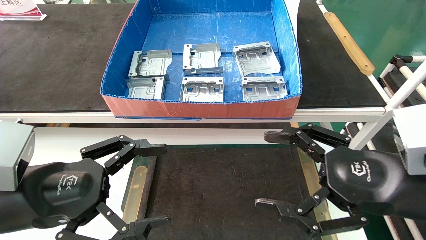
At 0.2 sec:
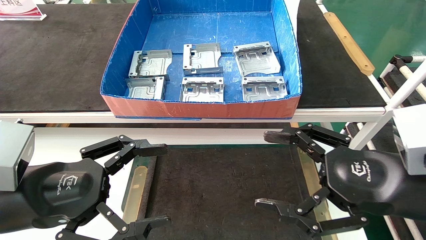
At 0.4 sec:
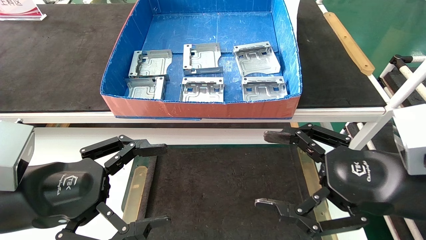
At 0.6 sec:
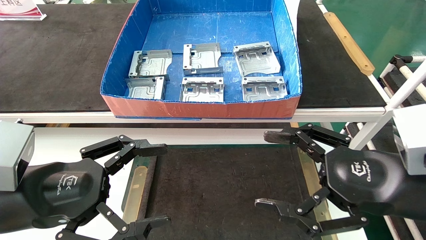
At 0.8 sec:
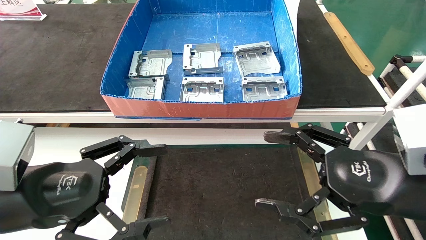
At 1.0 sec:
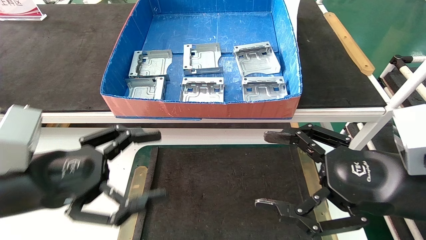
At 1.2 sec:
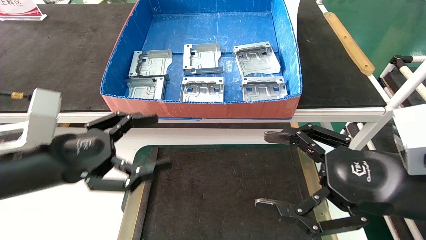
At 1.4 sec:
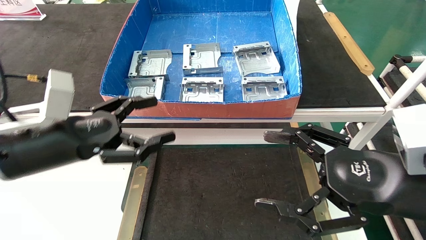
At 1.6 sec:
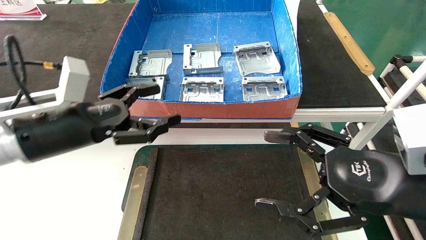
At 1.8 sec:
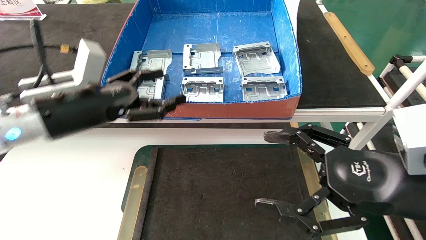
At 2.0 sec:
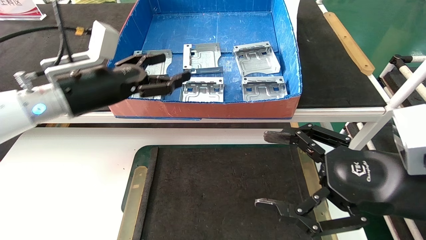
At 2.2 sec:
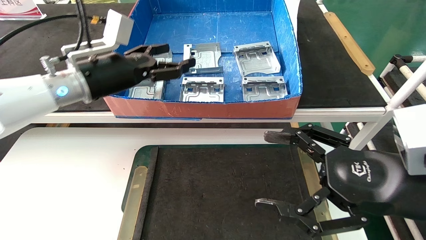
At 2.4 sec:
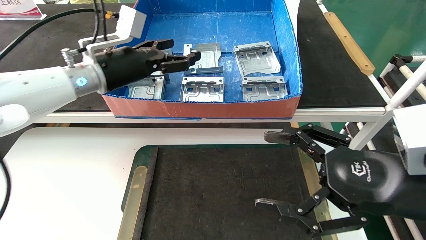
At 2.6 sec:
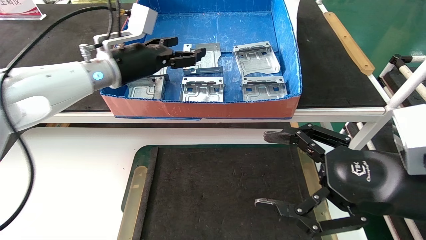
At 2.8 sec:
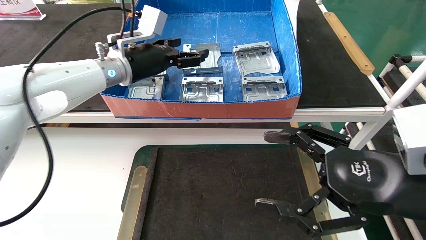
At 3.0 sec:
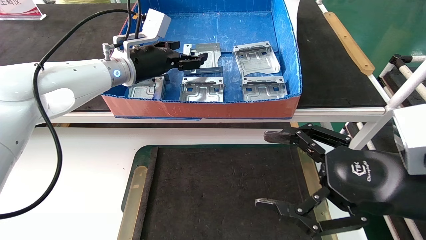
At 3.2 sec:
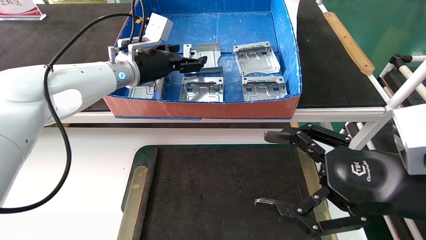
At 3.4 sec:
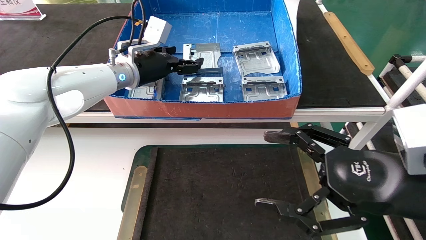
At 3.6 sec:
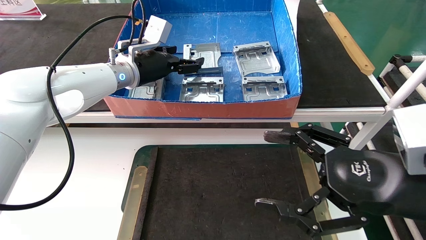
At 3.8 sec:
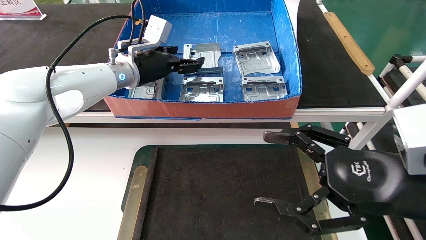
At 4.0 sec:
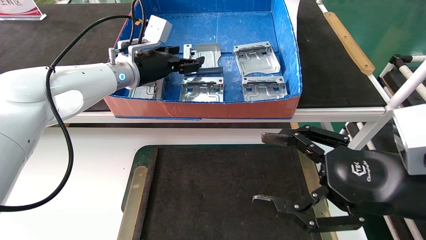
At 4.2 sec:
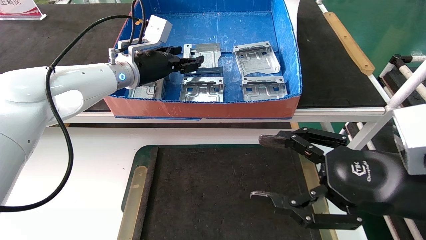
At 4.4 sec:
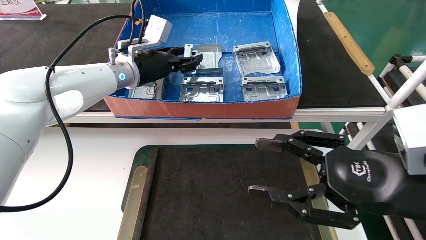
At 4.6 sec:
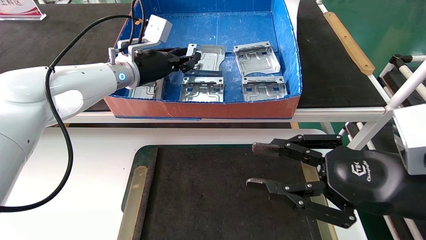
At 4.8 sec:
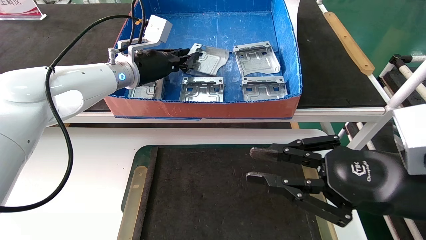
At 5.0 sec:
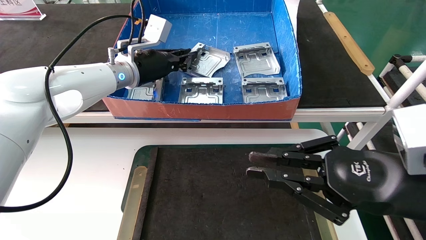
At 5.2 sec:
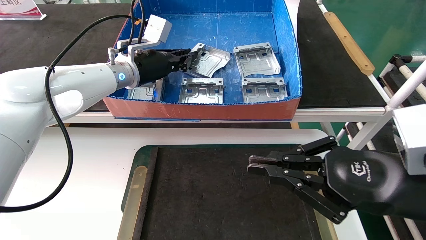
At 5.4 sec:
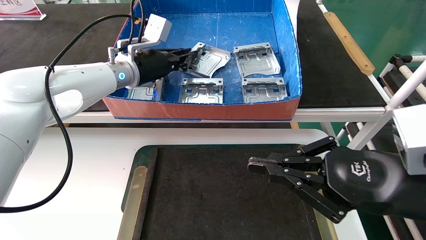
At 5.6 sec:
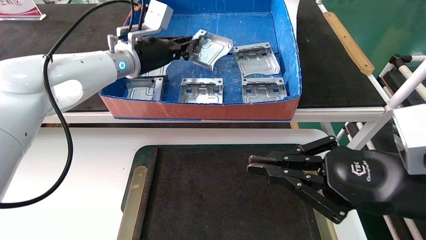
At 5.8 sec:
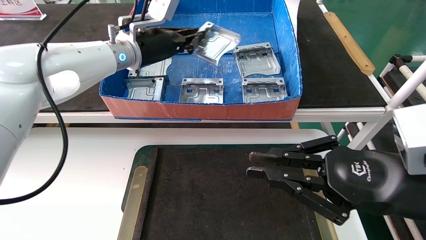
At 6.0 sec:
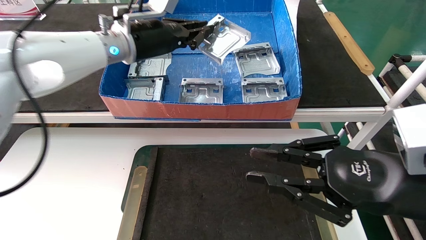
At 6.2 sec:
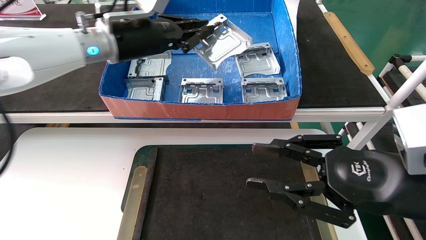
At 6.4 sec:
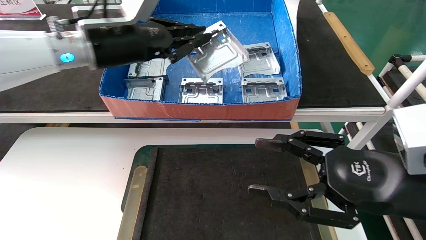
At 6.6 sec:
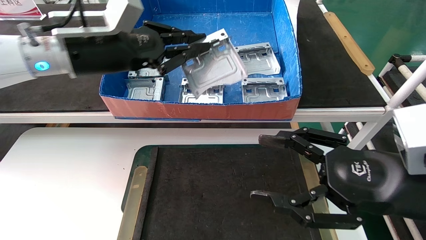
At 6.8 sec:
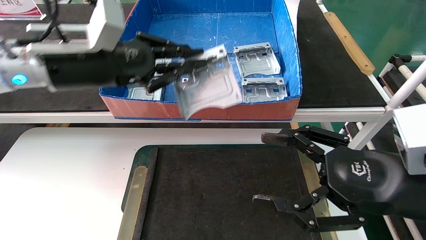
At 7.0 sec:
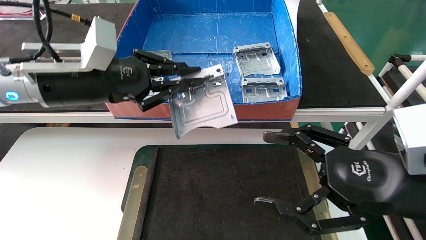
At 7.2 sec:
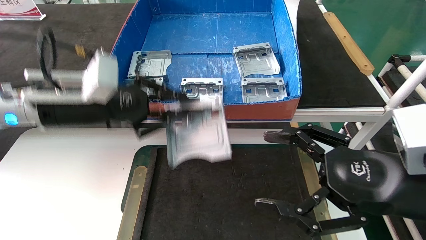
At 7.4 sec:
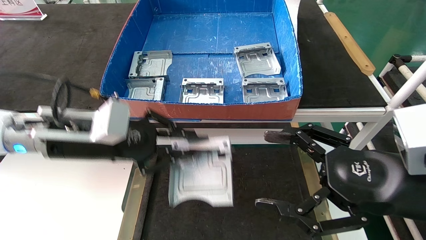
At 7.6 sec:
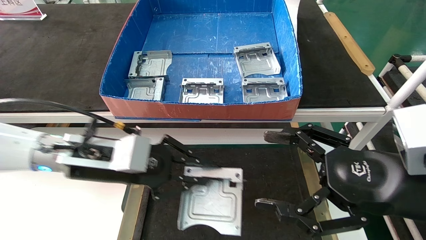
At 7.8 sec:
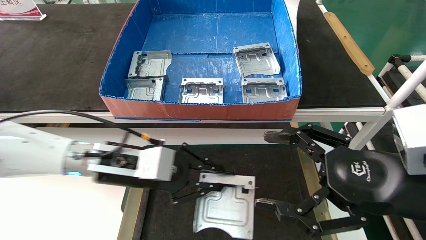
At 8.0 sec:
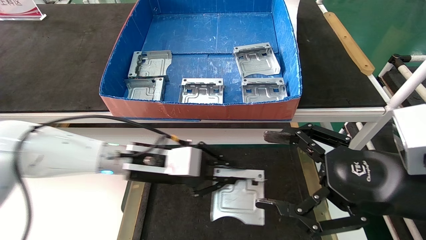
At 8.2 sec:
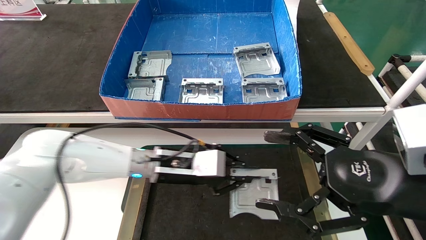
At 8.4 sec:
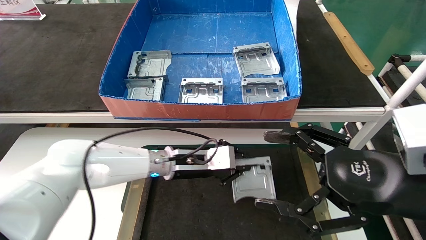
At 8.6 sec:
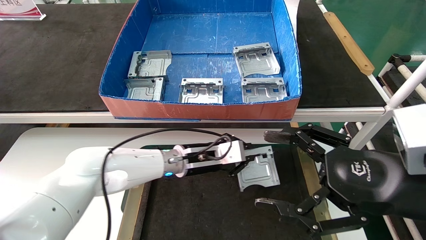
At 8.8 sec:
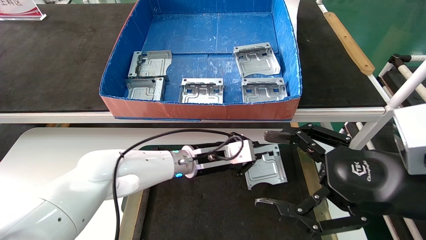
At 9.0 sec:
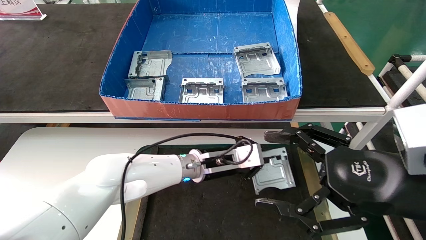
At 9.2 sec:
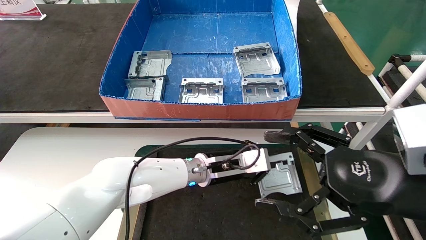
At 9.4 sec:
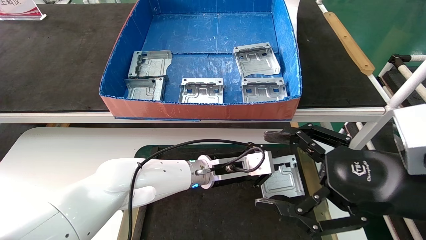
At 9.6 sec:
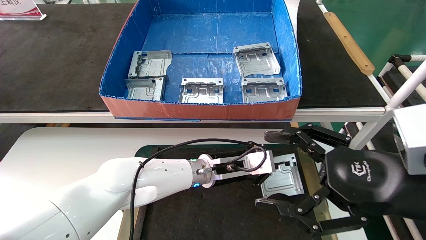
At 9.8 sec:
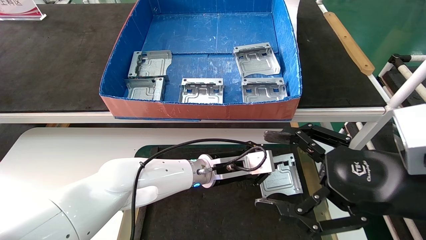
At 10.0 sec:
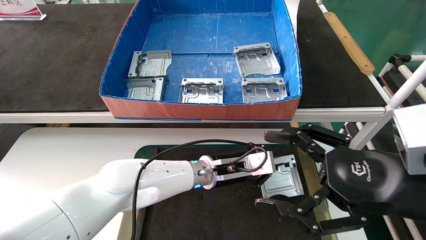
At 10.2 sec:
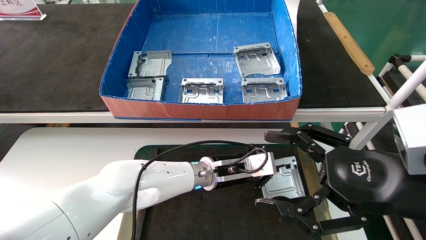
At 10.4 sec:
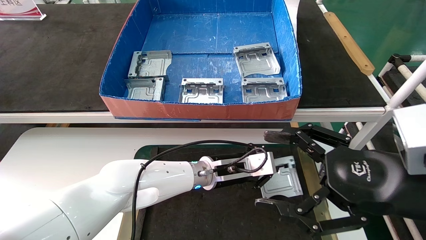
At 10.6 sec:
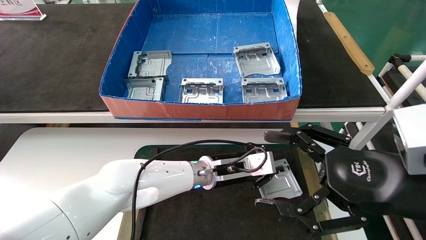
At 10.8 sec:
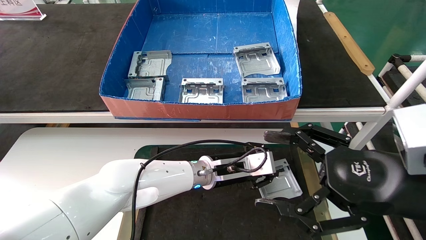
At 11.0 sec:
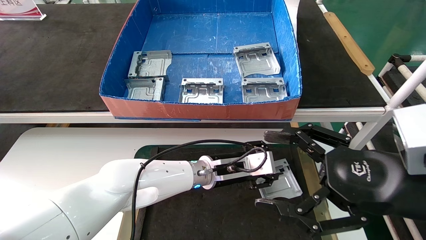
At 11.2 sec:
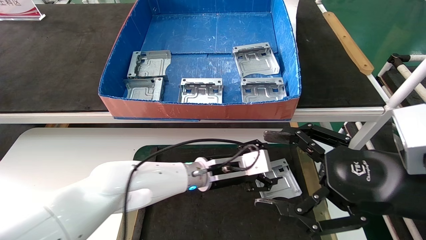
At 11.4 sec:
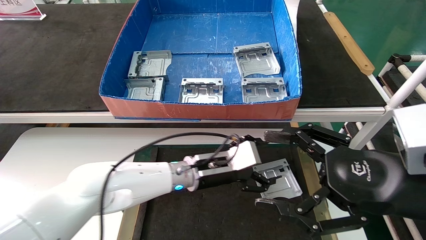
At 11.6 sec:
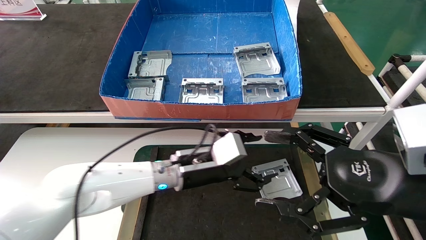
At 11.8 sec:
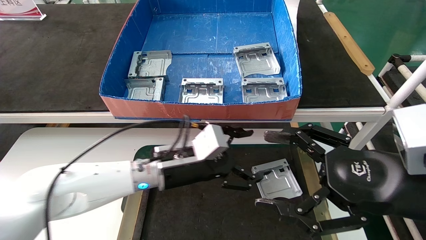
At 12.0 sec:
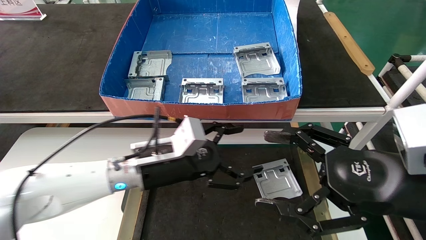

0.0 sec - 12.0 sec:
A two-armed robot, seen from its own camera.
Task of the whole recording: take the accessories out of the box and place them on the table.
Step, 1.0 sec - 4.8 sec: Pick up the hard drive bracket from the feeding area.
Step, 5.0 sec - 10.6 sec: Place the hard drive bracket into the box.
0.0 sec - 1.6 sec: The left gripper goes some 10 cm forward.
1.6 sec - 3.0 sec: The left gripper moves forward, to the right and upward, about 20 cm.
3.0 sec - 4.4 sec: The left gripper closes its fingers.
4.4 sec - 6.0 sec: The left gripper heads upward, covering some 5 cm, and closes up; the right gripper closes its fingers.
6.0 sec - 7.6 sec: The right gripper opens up; the left gripper travels downward and backward by some 20 cm.
7.6 sec - 9.0 sec: The left gripper heads to the right, forward and downward, covering about 25 cm.
9.0 sec - 10.4 sec: The grippers move only a little.
10.4 sec - 12.0 sec: The left gripper is displaced to the left and backward by about 15 cm, and opens.
